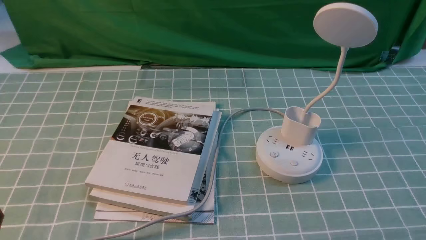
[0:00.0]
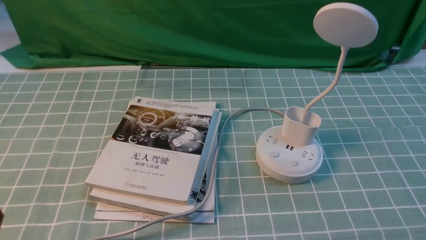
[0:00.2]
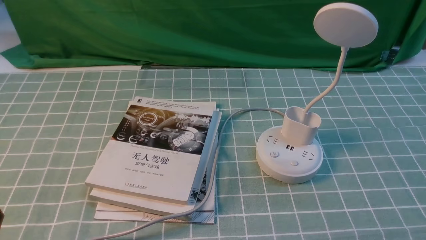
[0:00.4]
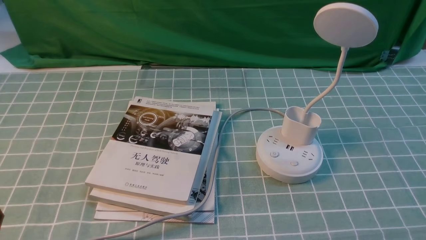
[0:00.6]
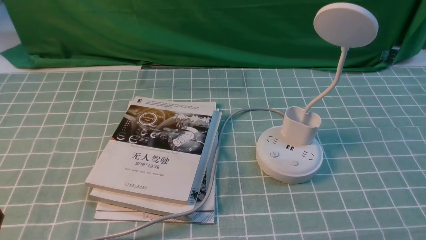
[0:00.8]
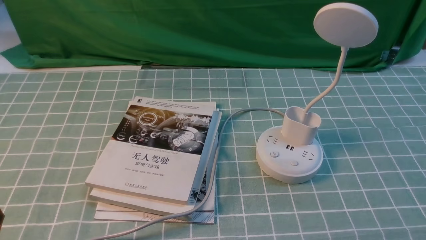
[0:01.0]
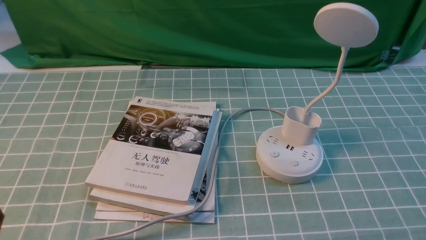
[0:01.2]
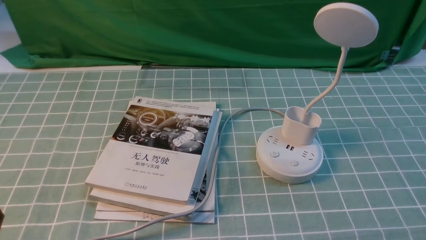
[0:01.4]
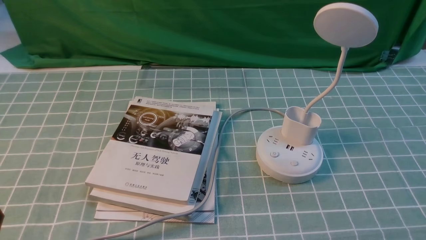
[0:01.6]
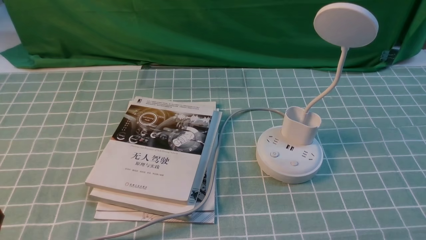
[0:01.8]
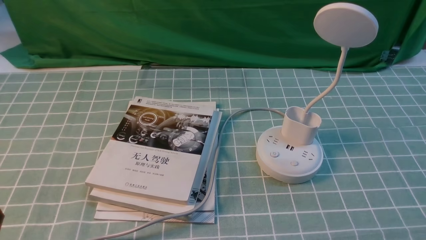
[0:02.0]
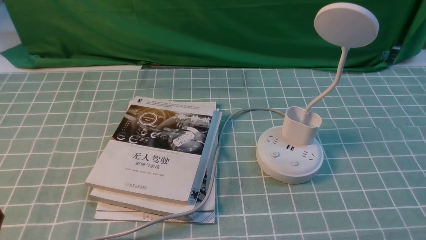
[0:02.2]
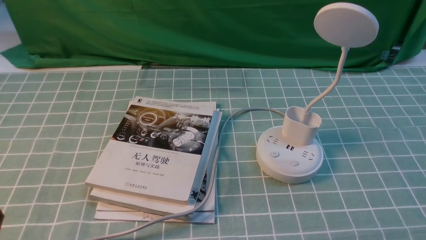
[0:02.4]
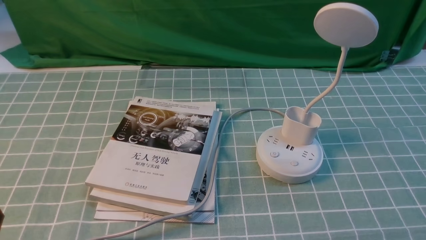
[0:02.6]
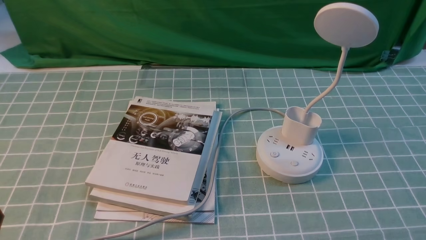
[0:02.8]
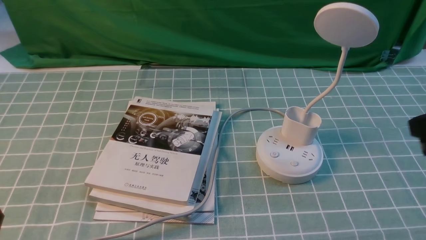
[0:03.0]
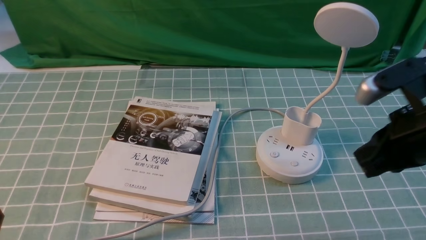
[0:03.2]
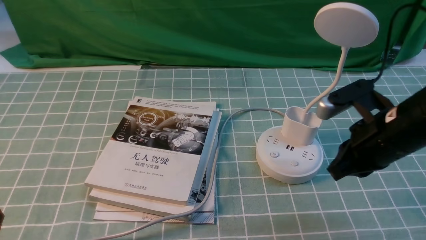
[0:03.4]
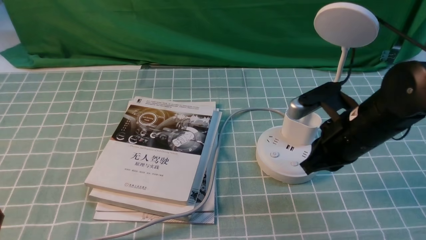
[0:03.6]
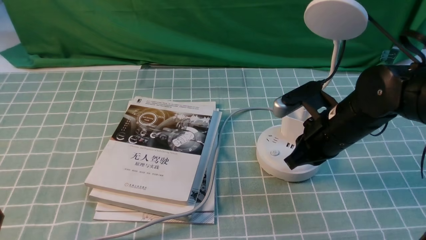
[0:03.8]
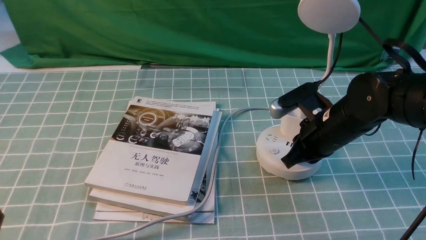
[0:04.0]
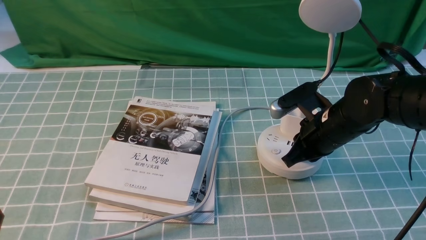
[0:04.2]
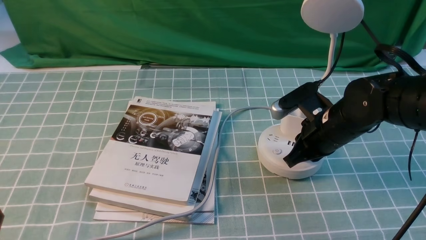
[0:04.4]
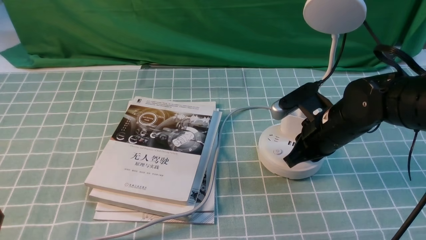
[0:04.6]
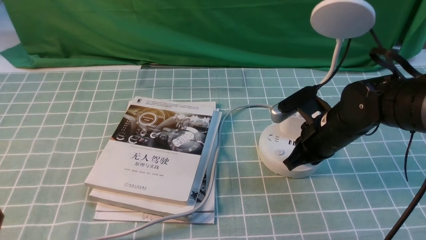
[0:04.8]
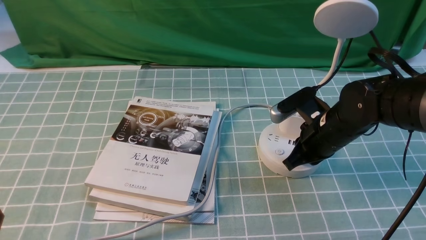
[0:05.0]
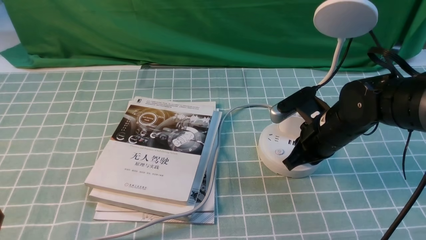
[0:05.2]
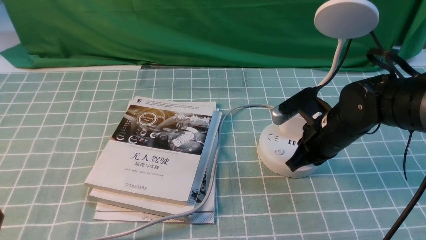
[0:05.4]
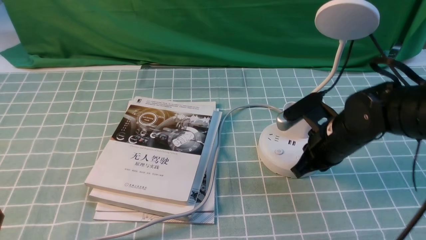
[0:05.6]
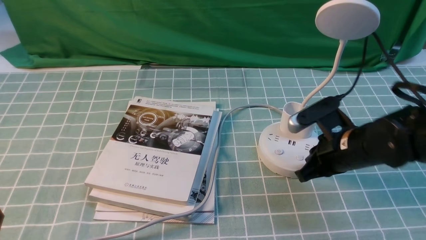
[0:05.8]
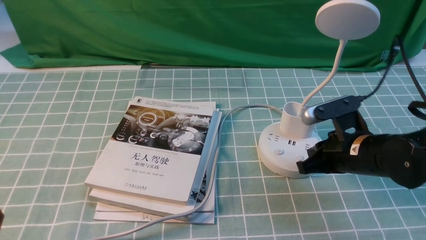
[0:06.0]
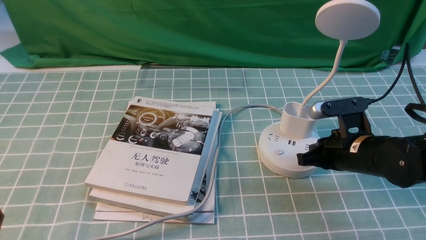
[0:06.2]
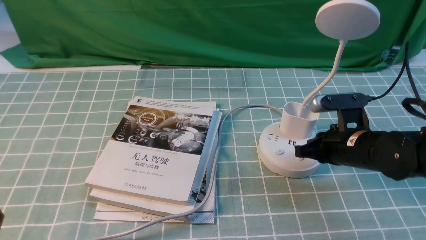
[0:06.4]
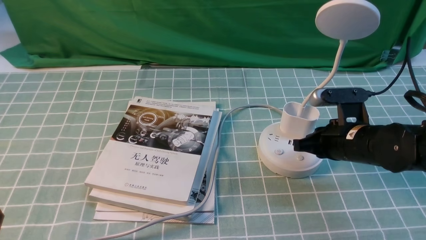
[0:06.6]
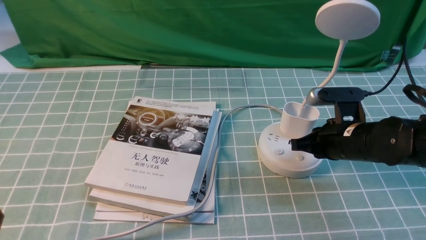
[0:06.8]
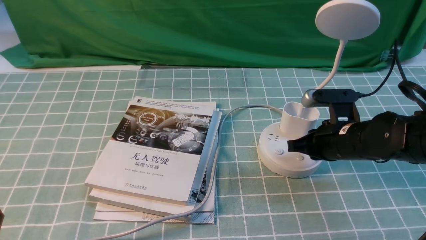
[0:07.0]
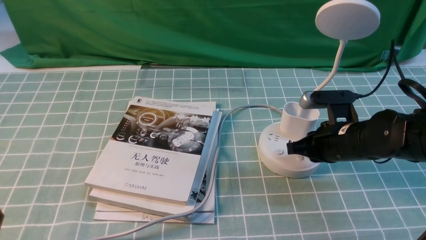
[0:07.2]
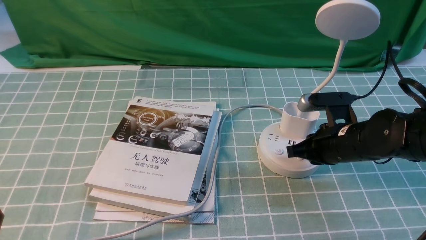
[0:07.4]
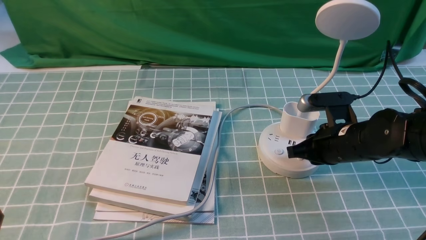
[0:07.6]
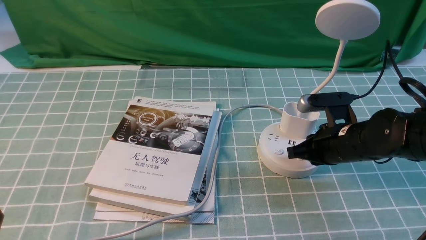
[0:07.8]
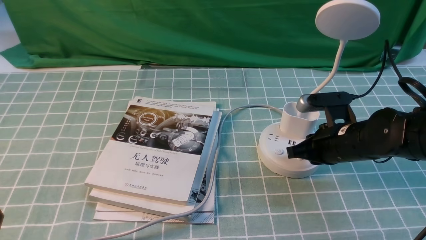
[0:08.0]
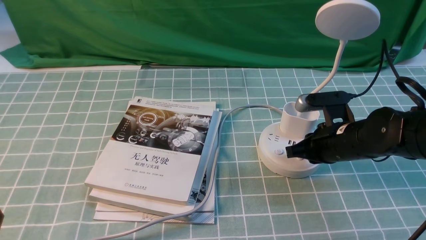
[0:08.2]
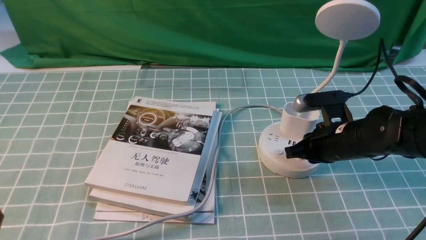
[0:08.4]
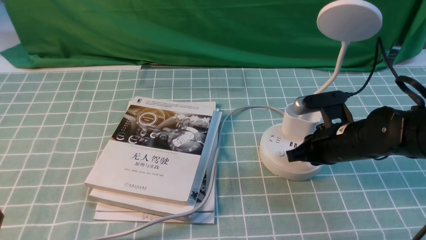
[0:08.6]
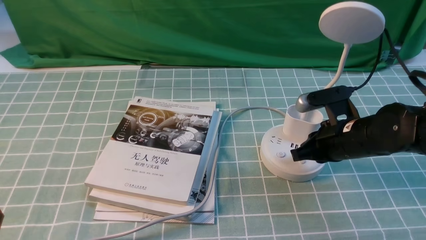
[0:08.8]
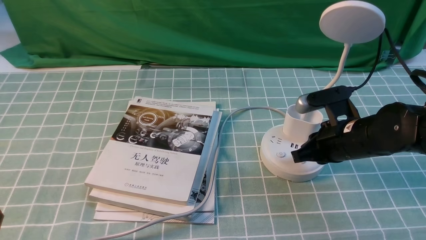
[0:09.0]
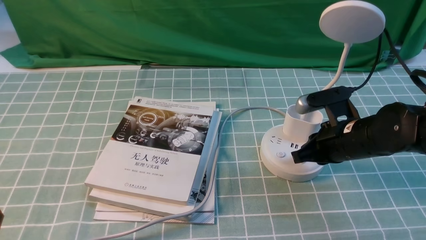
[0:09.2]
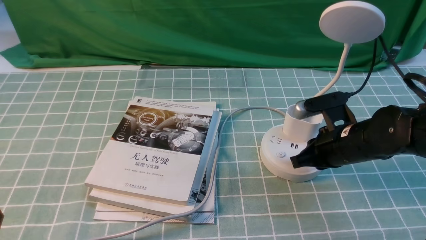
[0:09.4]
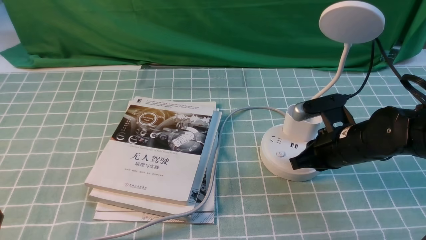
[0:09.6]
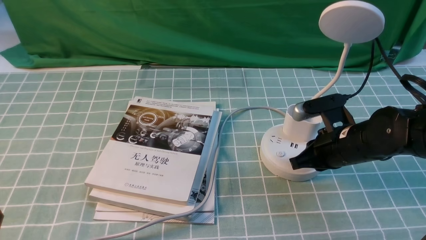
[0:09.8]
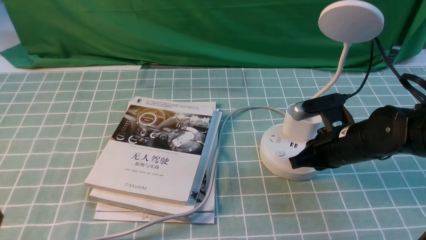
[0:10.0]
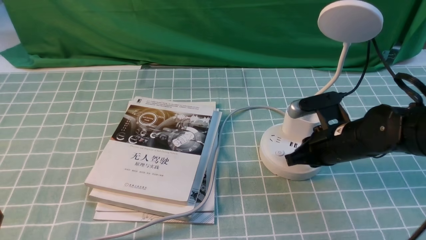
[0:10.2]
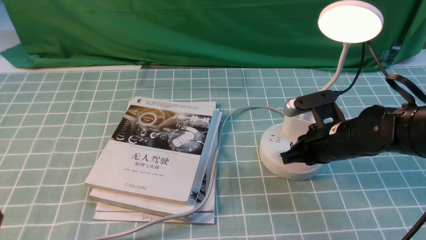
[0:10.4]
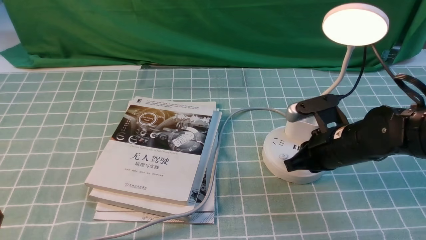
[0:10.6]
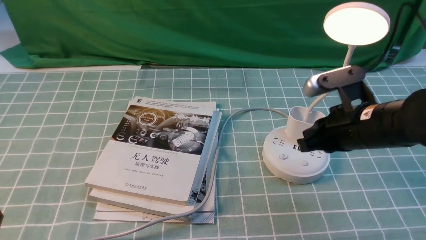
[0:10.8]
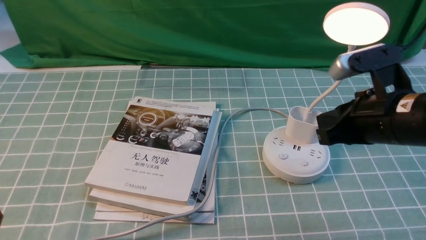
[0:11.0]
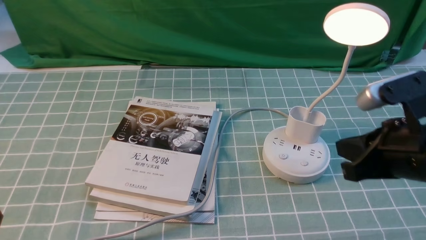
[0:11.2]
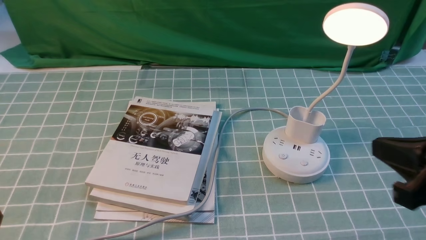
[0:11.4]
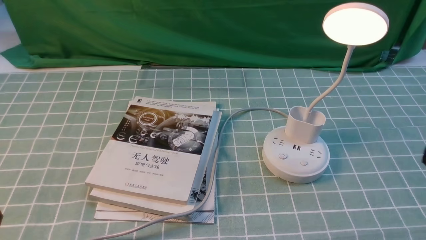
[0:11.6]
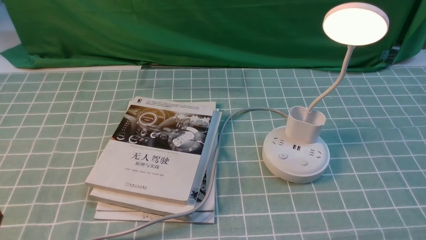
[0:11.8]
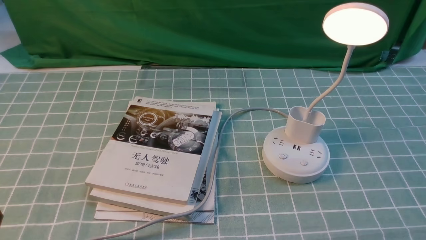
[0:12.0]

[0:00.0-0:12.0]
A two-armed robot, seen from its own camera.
Step, 0:00.0 to 0:10.6: use the right arm to press the button switch on the lamp holder.
0:03.0 to 0:04.4: The right gripper travels downward, forward and to the left by about 25 cm.
0:04.4 to 0:06.0: The grippers stay close to where they were, moving slightly.
0:06.0 to 0:10.4: The grippers stay close to where they were, moving slightly.
0:10.4 to 0:12.0: The right gripper travels backward, upward and to the right by about 35 cm.

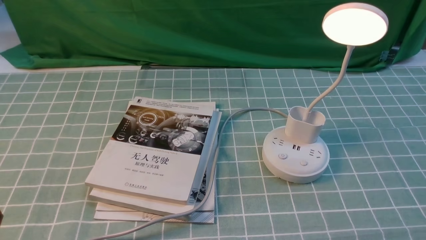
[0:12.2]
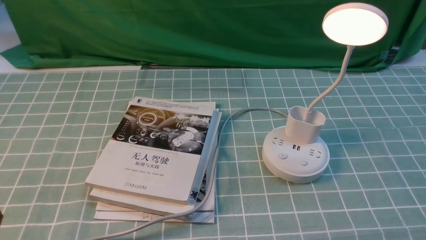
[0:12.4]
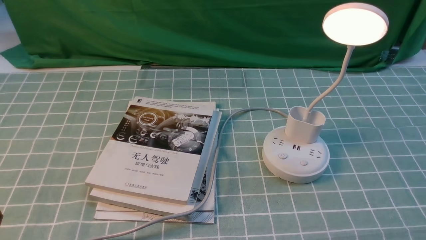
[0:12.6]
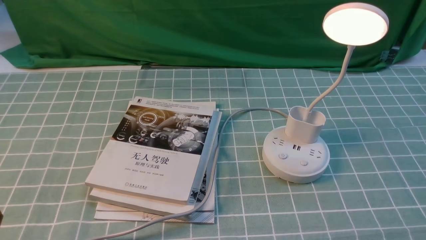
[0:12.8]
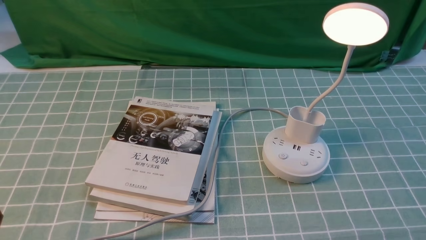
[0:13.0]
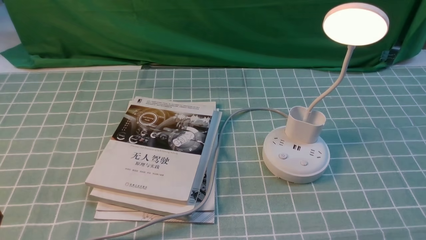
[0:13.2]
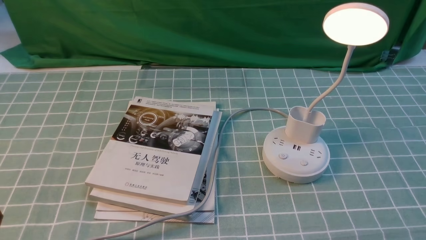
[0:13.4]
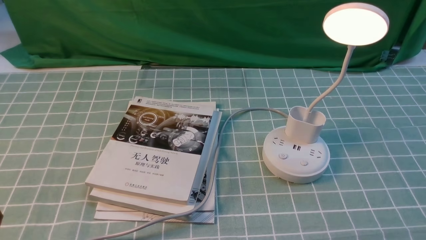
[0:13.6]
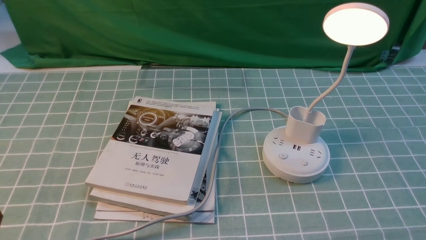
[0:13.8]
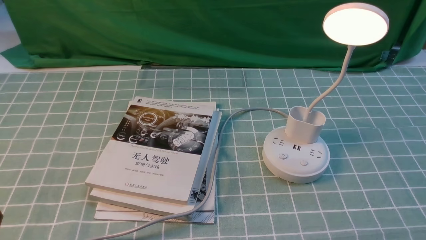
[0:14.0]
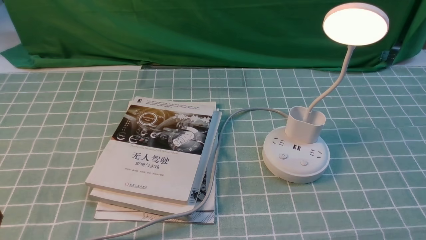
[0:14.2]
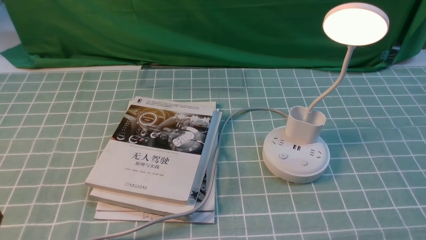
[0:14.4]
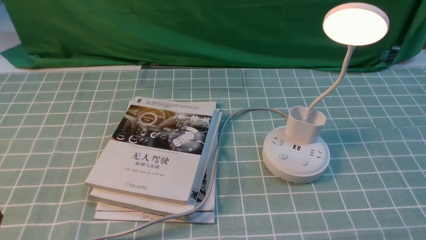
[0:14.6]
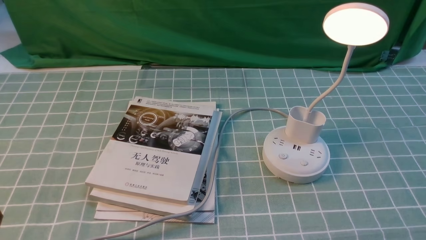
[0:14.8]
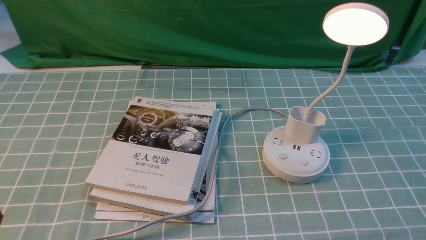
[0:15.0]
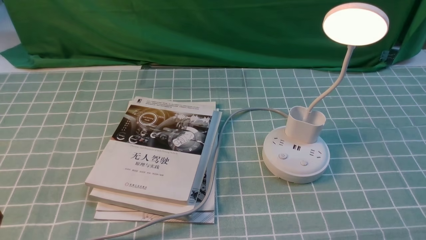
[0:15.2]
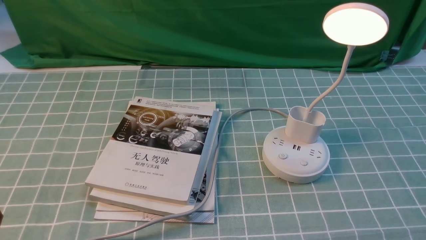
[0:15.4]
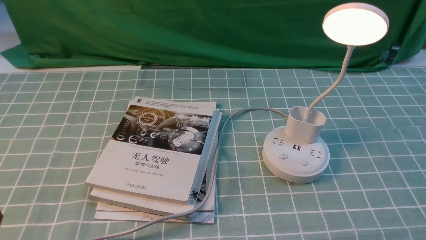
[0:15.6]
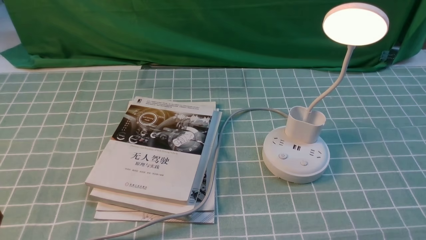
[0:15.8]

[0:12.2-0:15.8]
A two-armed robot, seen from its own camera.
0:14.0 to 0:15.8: The two grippers keep their place.

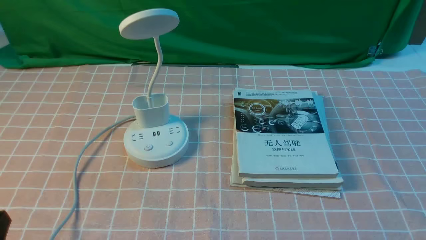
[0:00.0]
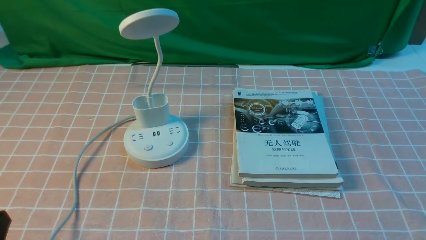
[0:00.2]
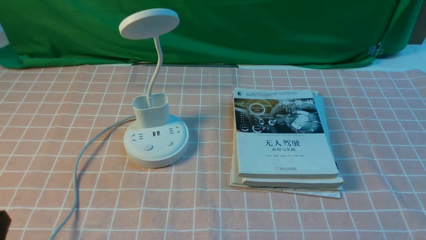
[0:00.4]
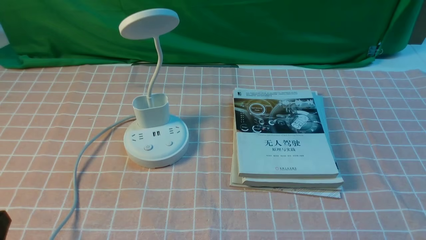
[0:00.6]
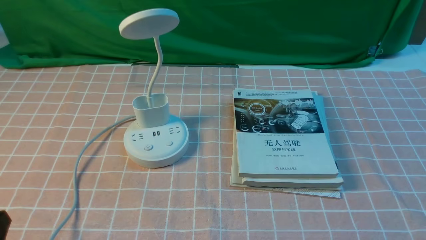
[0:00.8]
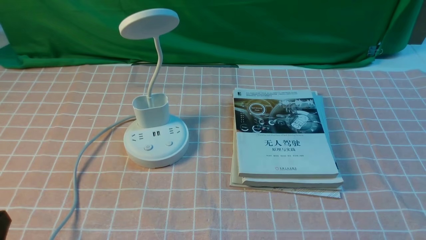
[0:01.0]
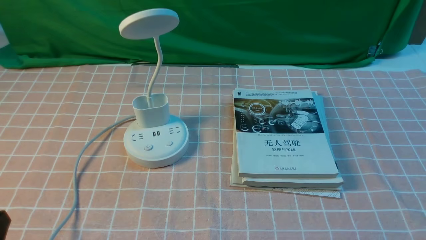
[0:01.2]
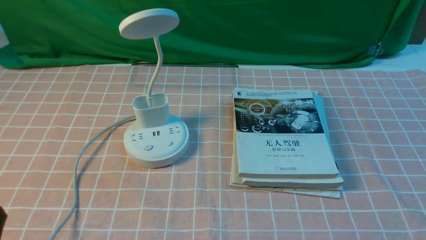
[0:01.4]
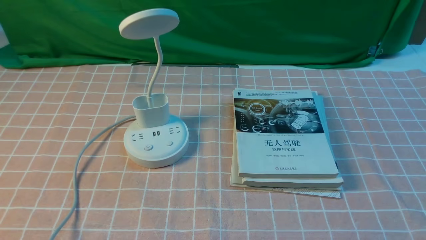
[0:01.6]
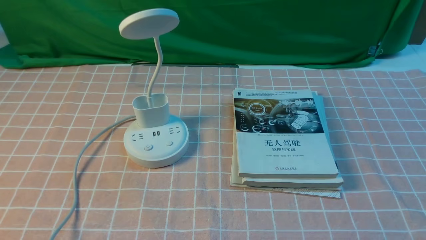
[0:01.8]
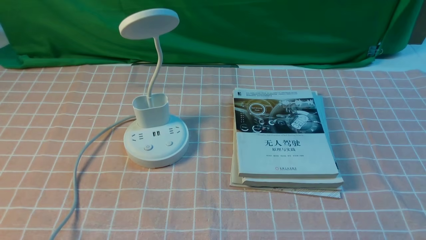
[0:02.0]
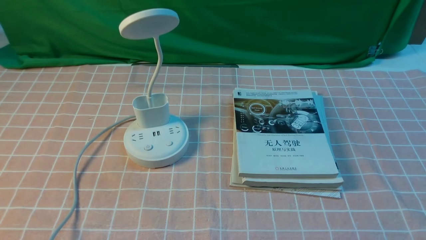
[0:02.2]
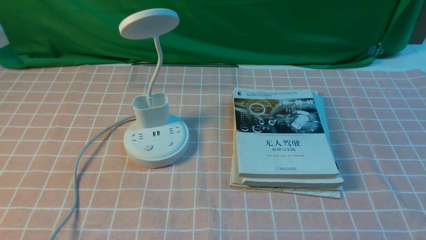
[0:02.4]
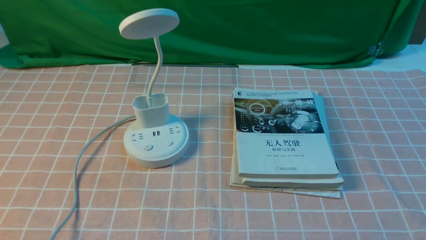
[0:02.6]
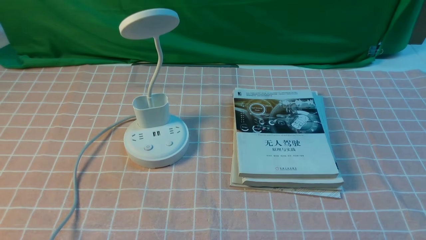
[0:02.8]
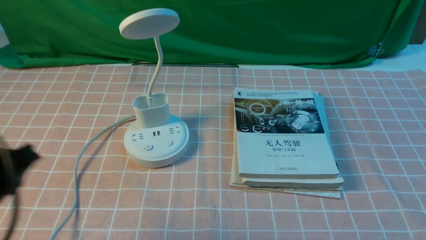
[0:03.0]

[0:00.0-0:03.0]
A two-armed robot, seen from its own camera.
0:01.6 to 0:03.0: The left gripper heads forward, covering some 10 cm.
